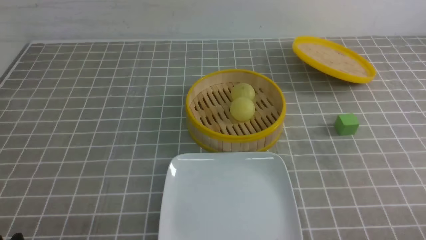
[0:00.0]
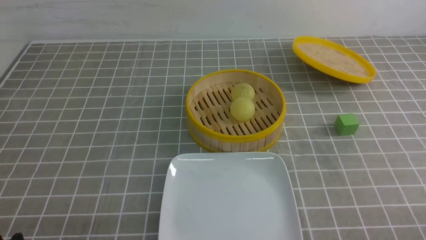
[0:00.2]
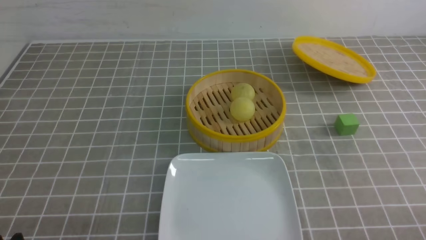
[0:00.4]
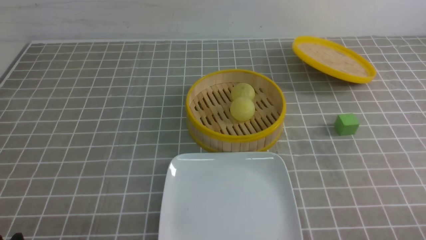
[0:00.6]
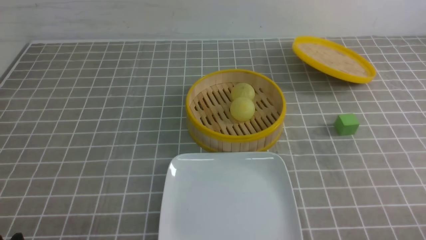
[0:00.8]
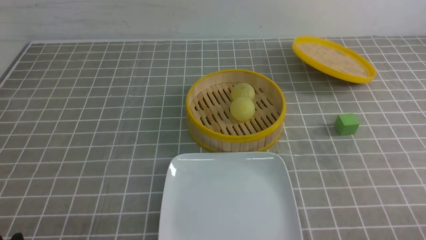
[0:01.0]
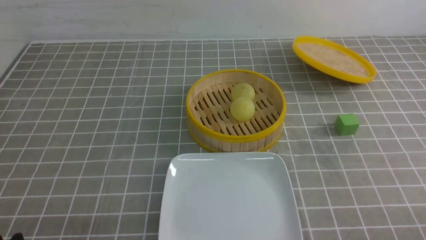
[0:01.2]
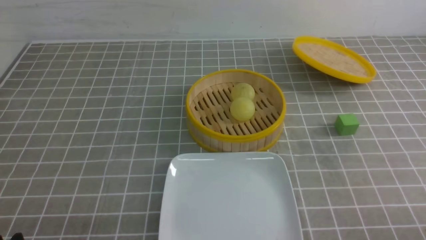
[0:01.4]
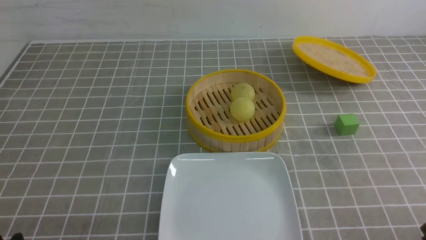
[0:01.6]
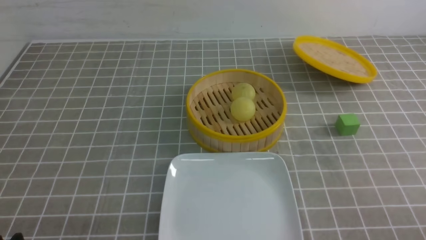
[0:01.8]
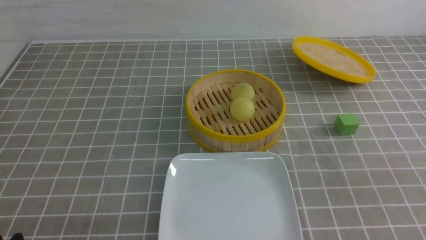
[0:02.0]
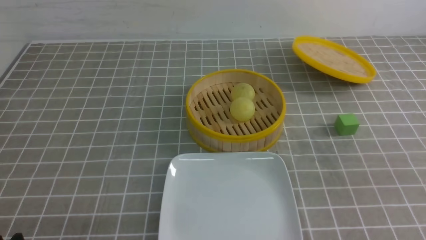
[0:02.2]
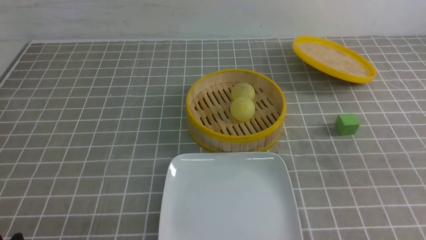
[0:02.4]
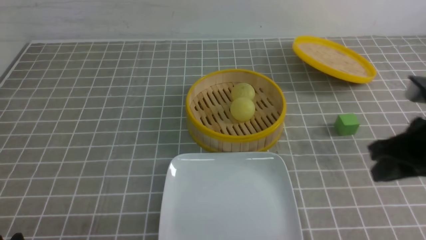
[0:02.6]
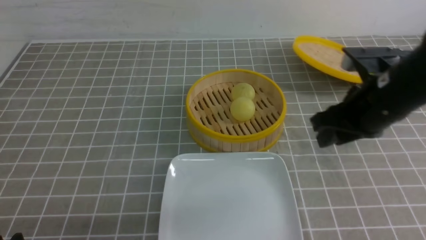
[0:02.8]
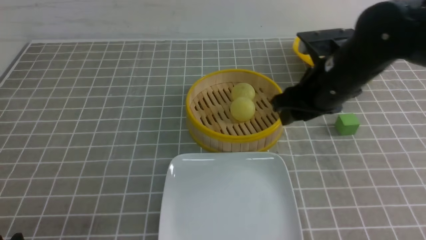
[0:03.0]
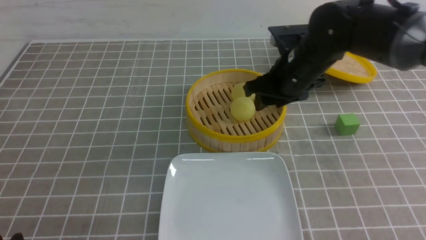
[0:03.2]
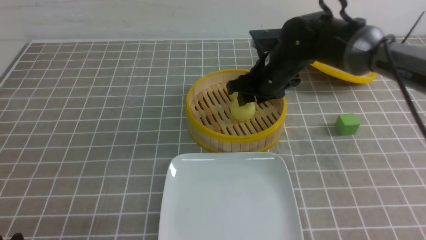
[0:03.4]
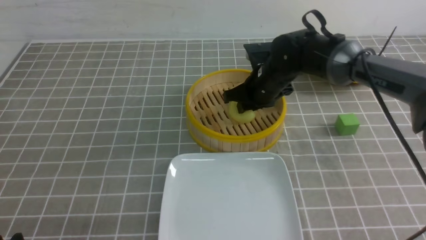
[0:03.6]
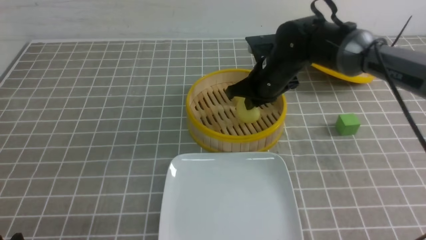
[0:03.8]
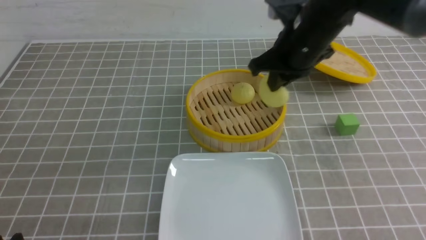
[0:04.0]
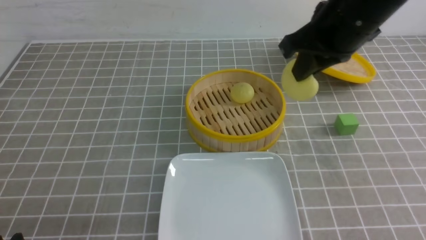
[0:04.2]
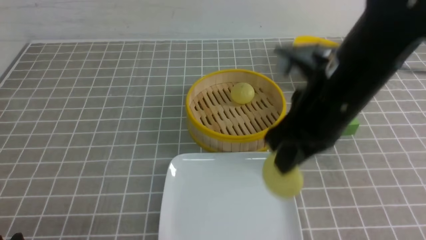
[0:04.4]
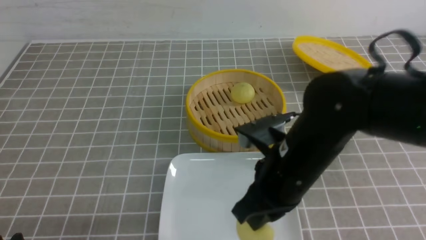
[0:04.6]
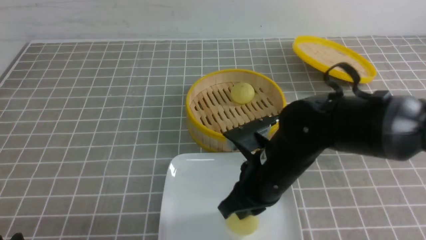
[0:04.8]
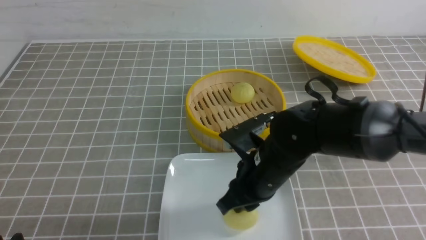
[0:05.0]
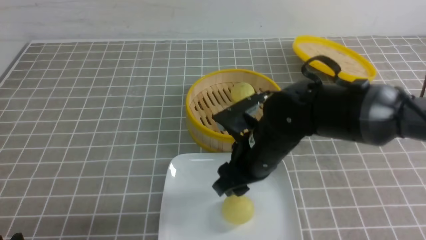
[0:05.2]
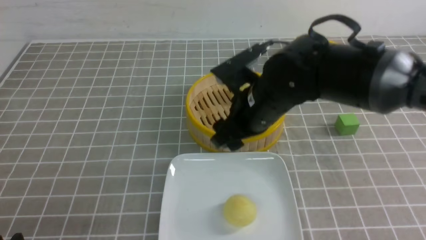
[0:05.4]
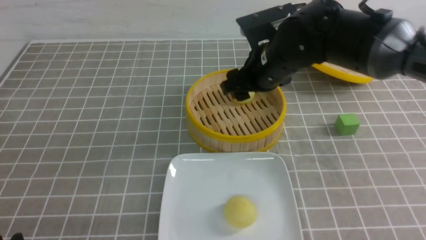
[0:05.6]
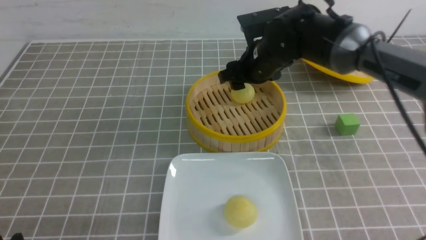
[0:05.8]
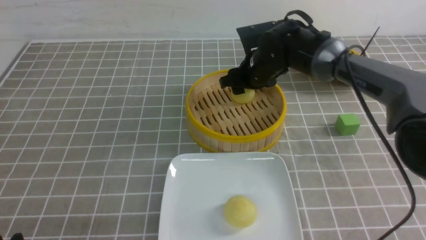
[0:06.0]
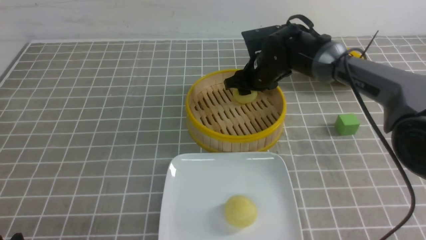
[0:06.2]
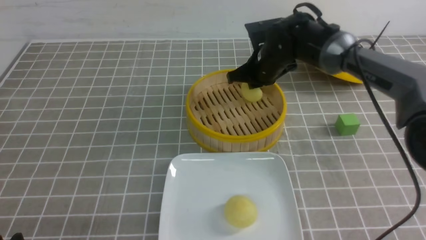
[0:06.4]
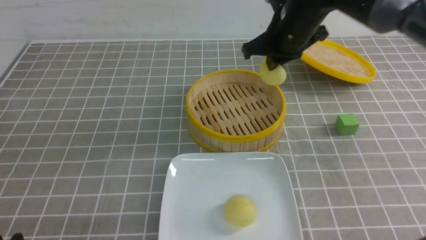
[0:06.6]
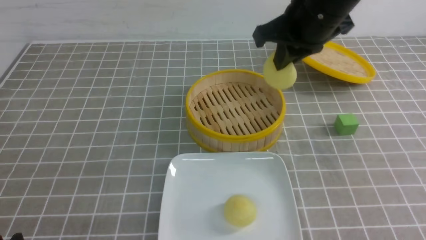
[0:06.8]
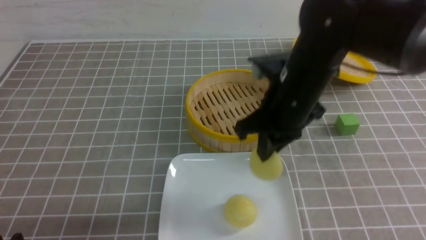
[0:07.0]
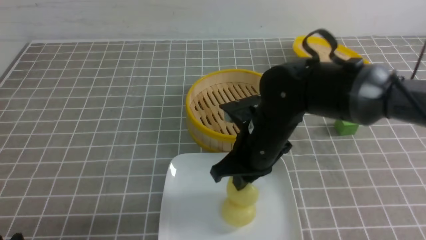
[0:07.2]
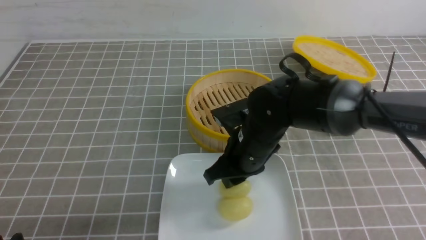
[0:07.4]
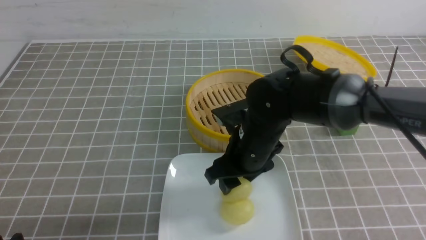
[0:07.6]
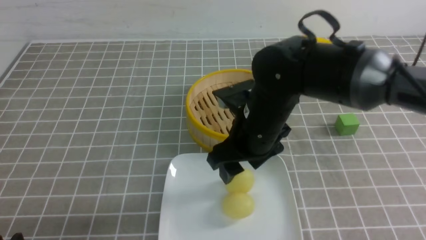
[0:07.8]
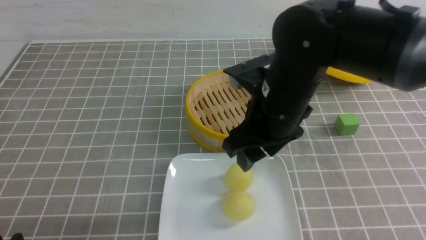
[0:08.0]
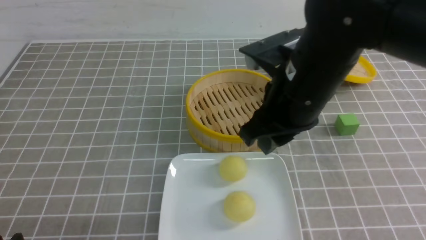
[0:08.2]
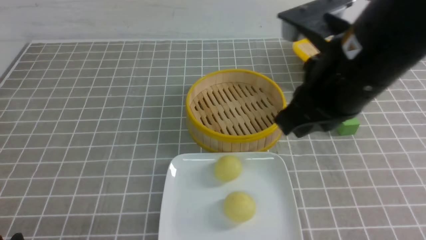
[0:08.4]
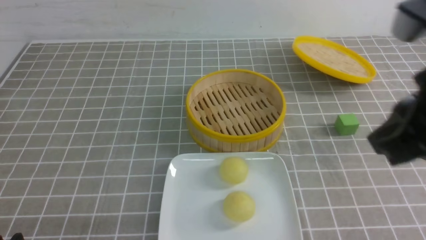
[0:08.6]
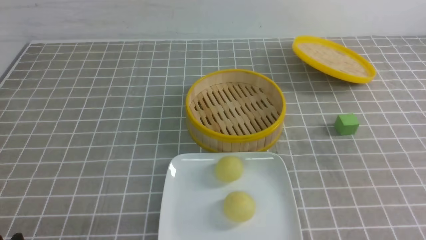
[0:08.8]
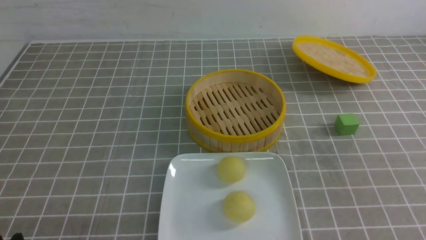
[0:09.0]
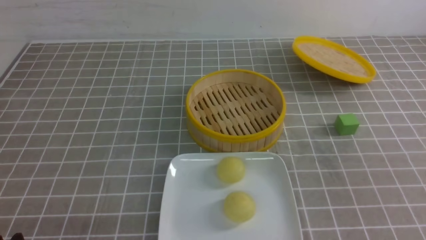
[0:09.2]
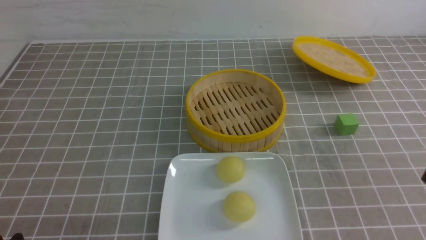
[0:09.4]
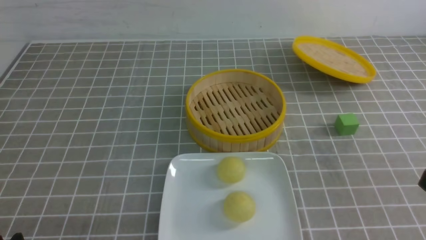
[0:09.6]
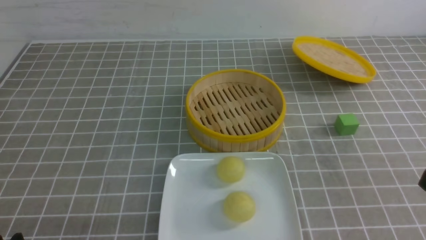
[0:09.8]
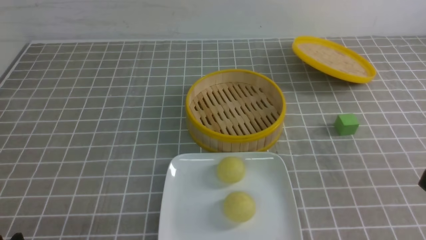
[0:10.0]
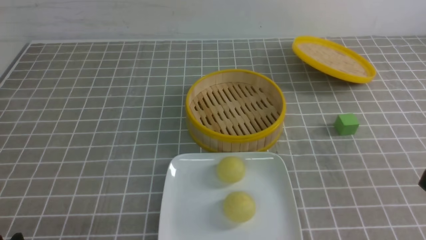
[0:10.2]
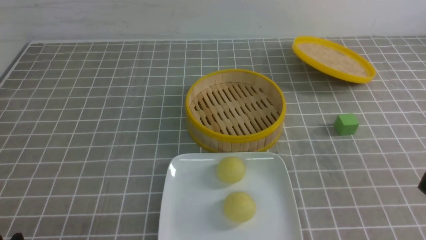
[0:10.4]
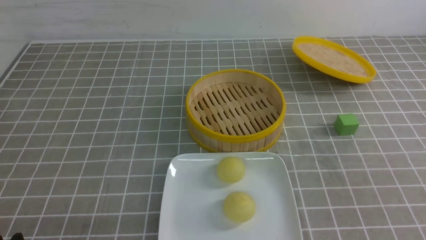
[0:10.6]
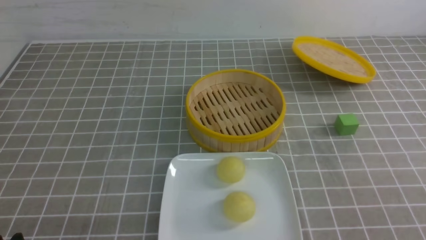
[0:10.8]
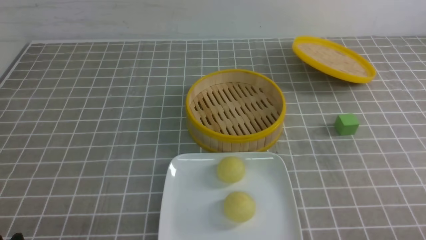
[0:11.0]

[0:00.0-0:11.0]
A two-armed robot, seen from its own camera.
Step, 0.0 to 3.8 s: use the right arm to grab the steamed stuffed bun that is closest to it.
Step, 4.0 to 5.0 s: use the right arm to put the steamed stuffed bun into the plate.
Step, 5.2 to 6.2 s: use the right arm to grab the steamed stuffed bun that is closest to it.
Step, 6.6 to 7.6 s: use the right arm to put the steamed stuffed bun into the plate.
1.6 to 3.2 s: The right gripper travels forward and to the left by approximately 40 cm, and closes, then reopens.
3.2 to 4.8 s: The right gripper travels backward and downward by roughly 15 cm, and closes its fingers.
4.8 to 6.2 s: The right gripper moves forward, approximately 25 cm, and opens its fingers.
6.2 to 7.8 s: The right gripper moves backward, about 20 cm, and opens.
7.8 to 9.4 s: The right gripper goes some 30 cm backward and to the right, and closes.

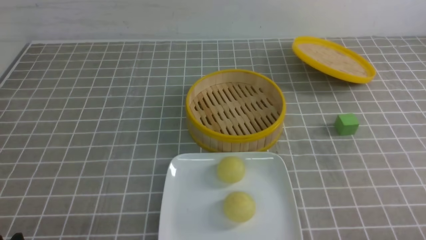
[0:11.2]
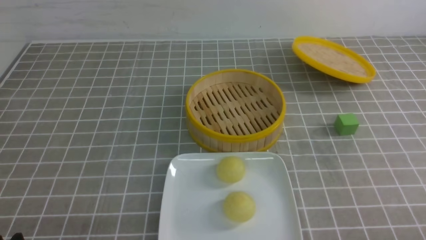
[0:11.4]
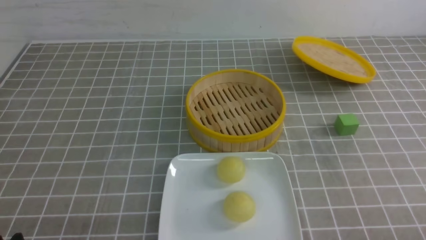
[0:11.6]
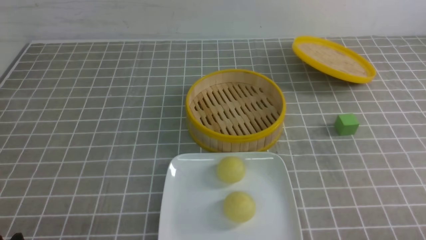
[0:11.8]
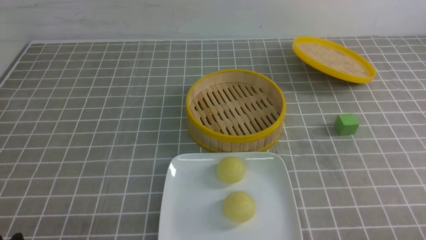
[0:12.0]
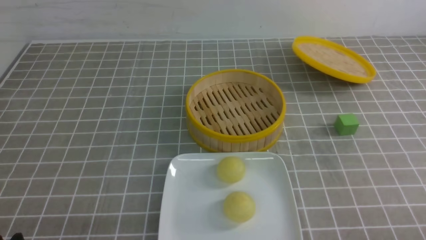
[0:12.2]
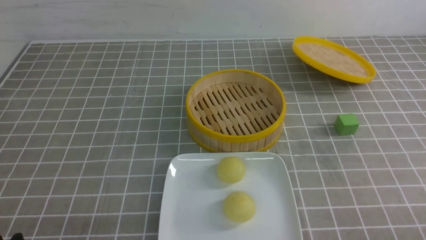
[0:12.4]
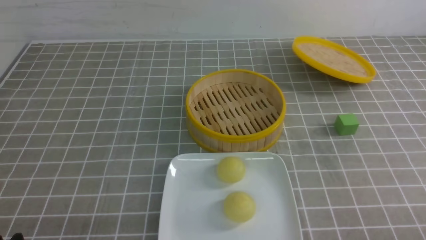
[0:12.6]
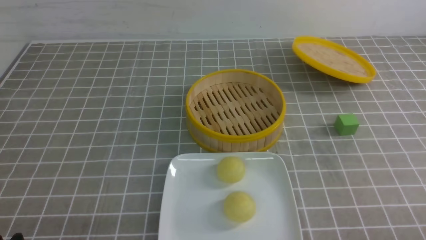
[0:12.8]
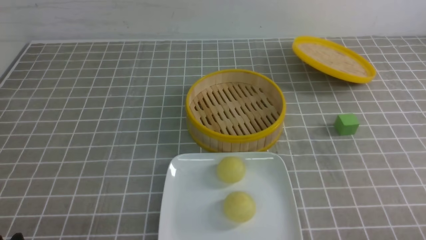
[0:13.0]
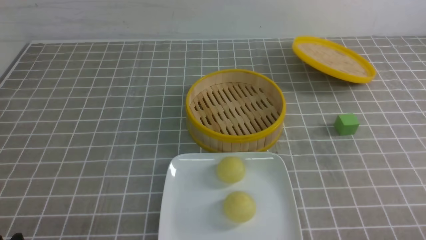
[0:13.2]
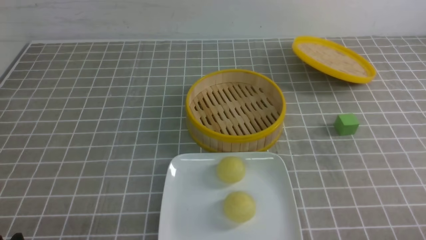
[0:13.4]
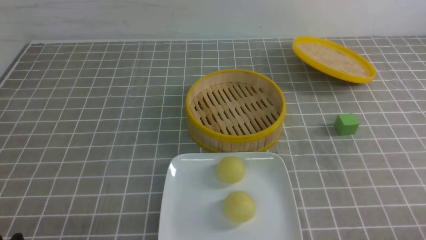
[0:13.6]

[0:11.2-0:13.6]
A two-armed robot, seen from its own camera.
12.4 to 13.6 s: Neither gripper changes place.

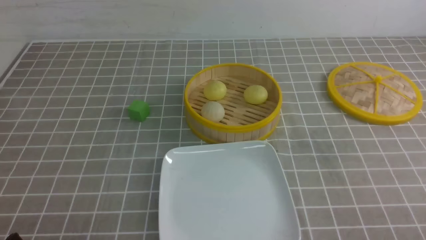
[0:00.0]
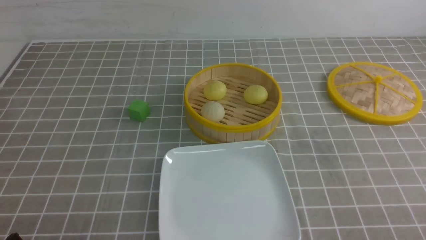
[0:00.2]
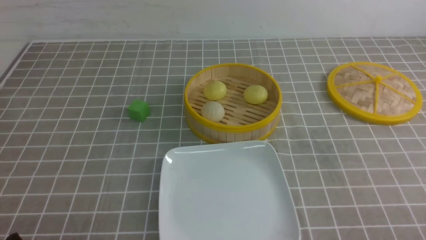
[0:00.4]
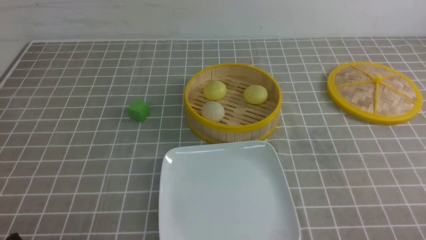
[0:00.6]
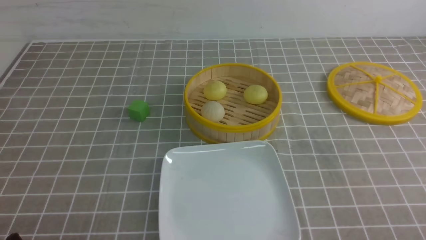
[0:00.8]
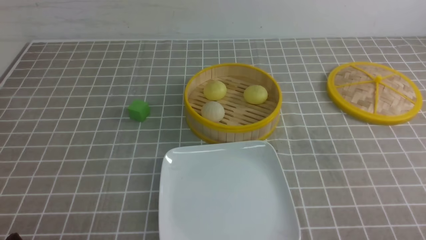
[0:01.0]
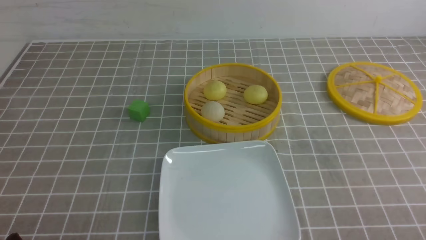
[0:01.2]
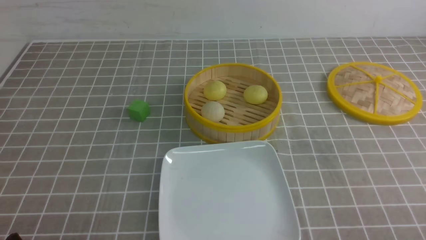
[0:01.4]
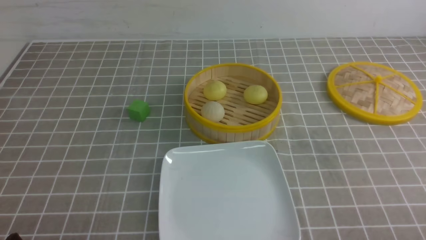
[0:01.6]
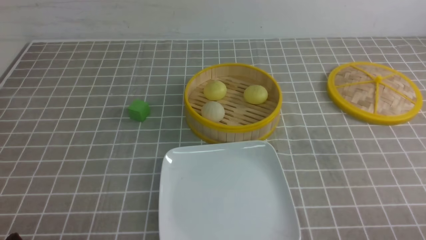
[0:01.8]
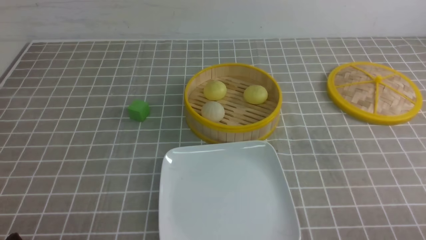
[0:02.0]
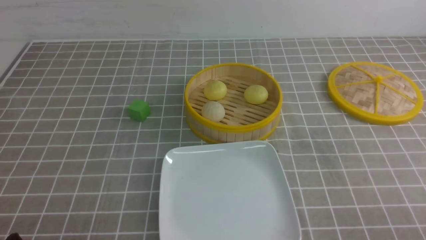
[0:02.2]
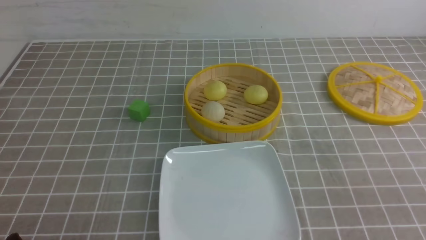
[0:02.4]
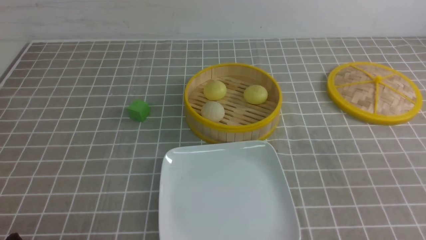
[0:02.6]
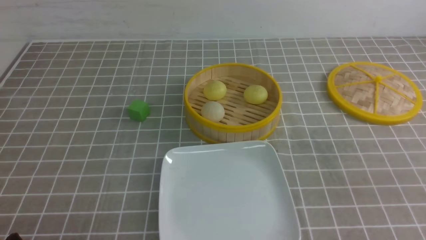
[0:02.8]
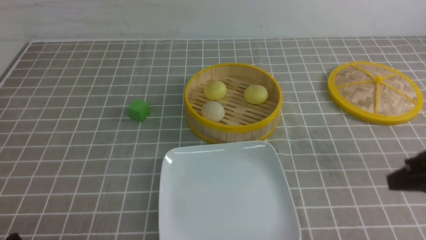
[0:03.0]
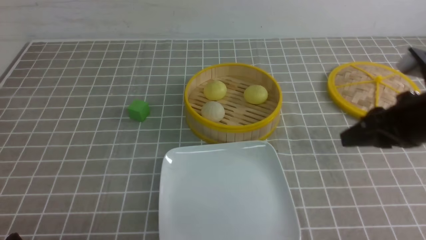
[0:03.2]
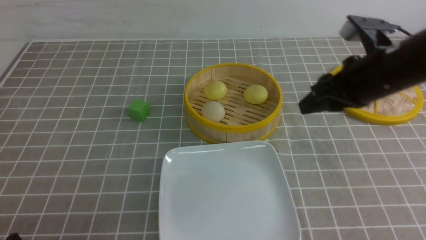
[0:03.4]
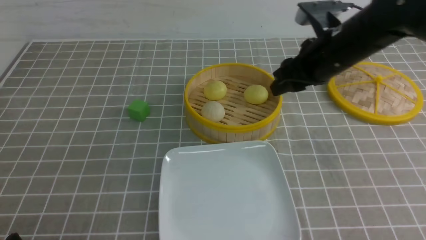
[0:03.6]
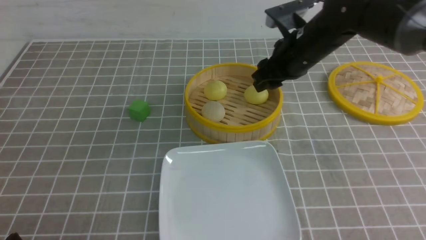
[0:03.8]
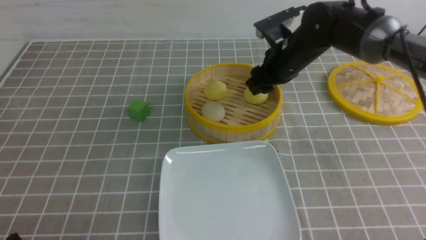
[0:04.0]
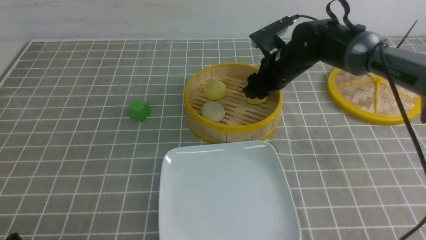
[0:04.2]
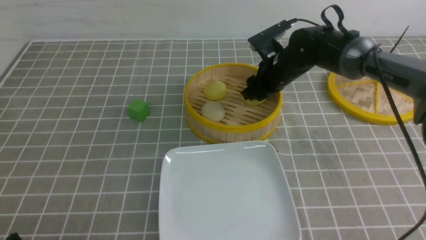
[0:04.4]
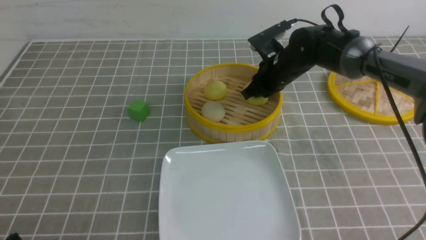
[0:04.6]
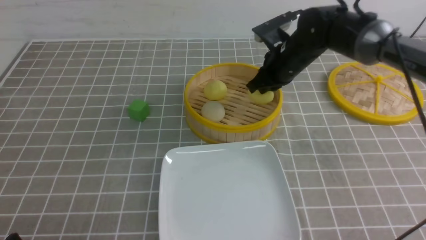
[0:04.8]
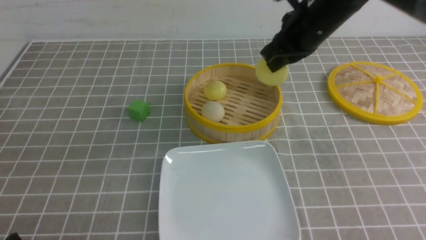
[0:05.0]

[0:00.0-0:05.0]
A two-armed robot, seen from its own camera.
Step, 0.0 to 4.6 s: use the right arm to grab the steamed stuffed bun that is closest to it.
1.6 to 3.4 s: The right gripper heads forward, upward and to the left, covering about 30 cm, and closes, then opens again.
3.4 to 5.0 s: The right gripper shifts about 10 cm forward and to the left, and closes its fingers.
